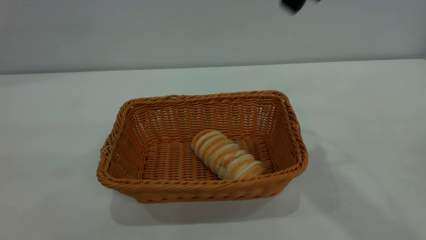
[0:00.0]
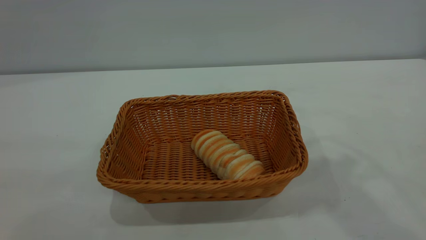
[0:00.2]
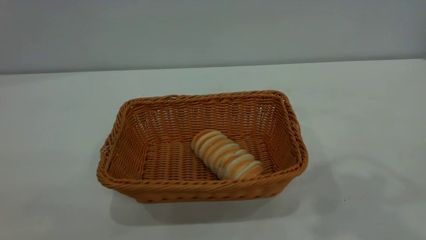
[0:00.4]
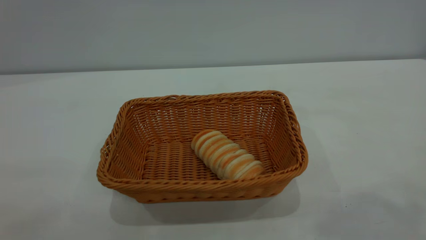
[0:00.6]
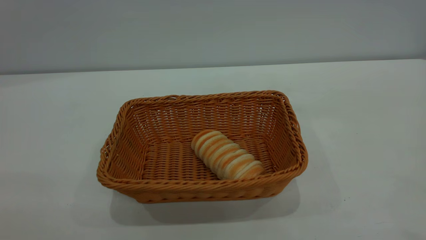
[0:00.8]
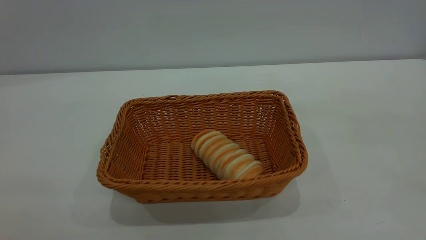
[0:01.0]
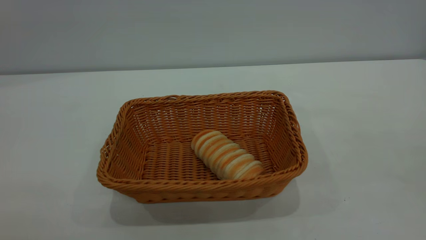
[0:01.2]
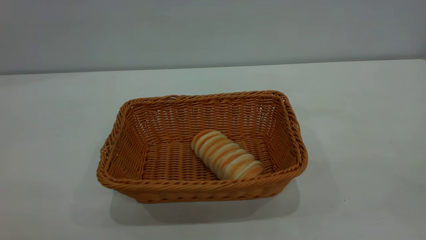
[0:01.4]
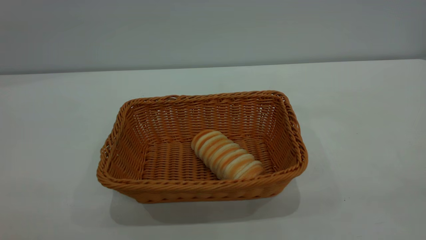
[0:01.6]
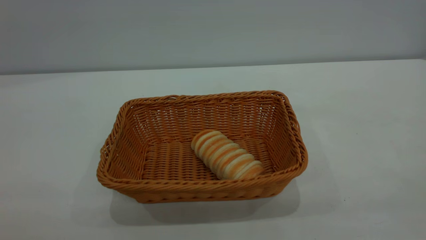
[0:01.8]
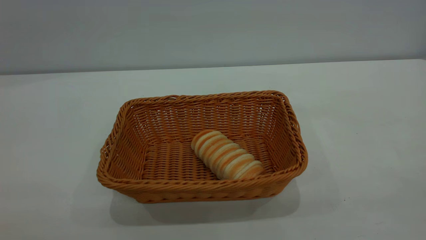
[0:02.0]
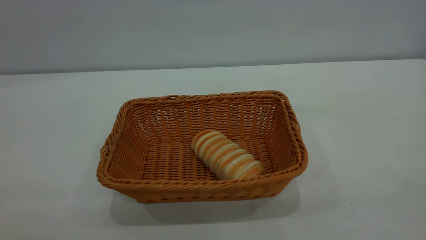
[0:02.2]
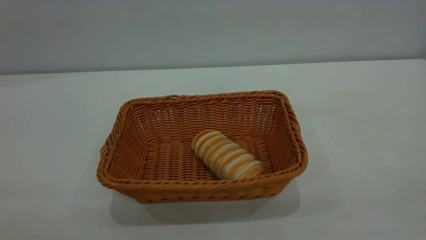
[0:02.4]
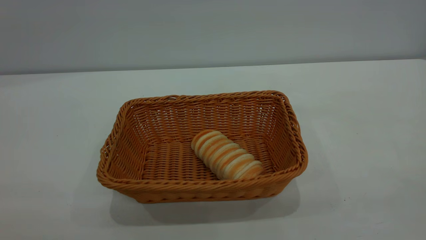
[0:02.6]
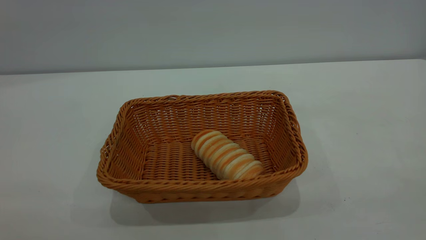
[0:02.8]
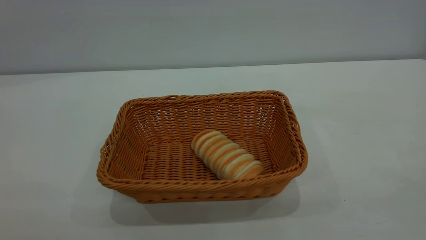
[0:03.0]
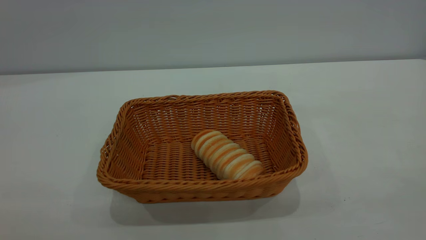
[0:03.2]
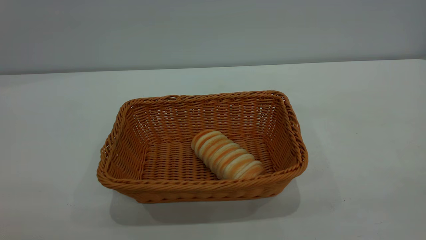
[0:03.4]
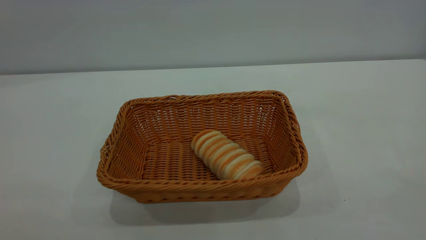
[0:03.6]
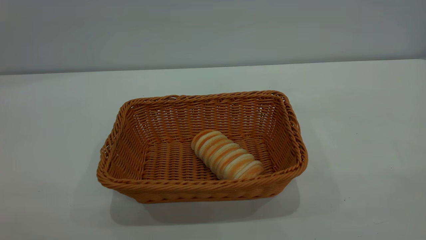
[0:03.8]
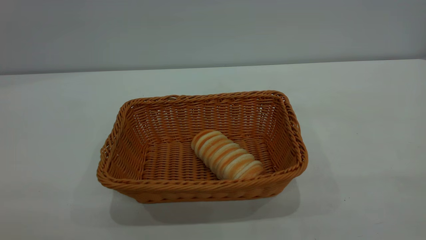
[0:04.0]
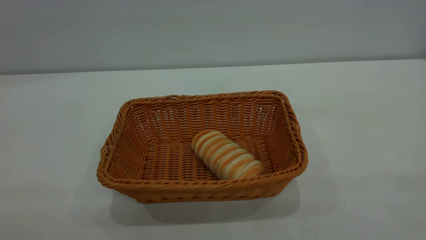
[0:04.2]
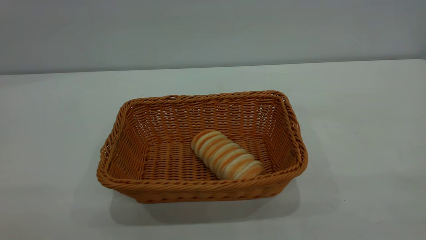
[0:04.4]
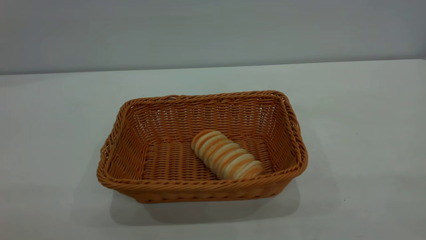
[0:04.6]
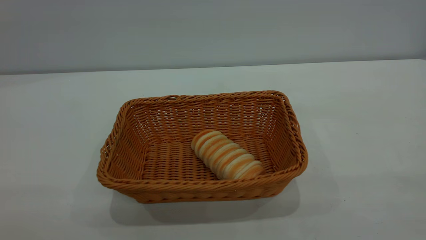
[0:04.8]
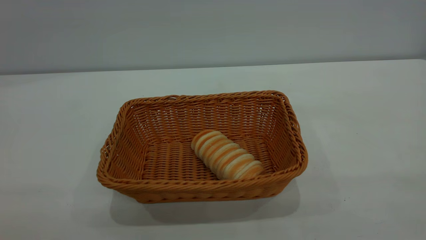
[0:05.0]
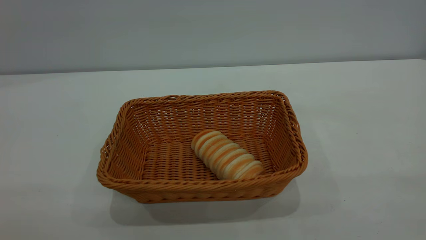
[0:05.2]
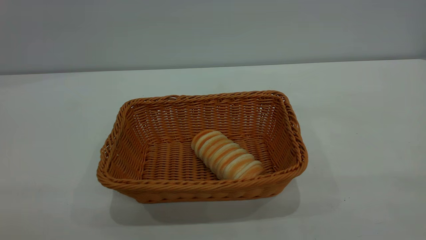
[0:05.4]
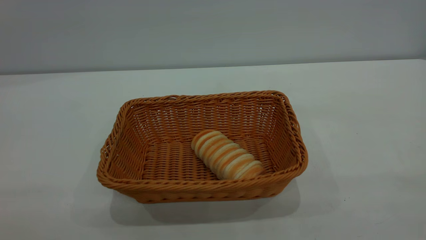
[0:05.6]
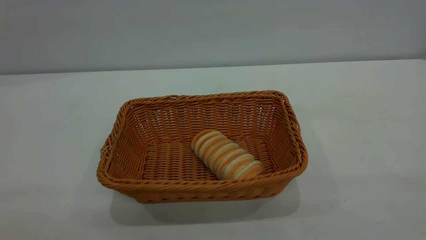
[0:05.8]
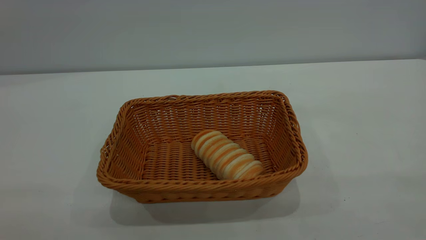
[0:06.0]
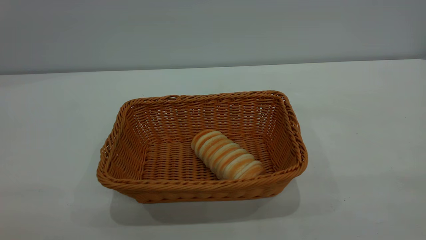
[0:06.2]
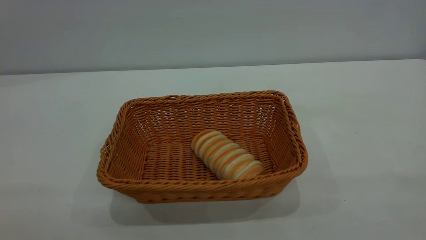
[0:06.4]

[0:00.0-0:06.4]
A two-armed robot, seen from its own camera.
Task of the whole recording: One hand grasps the yellow basket and places it in the middle of the table, while the other hand picks up the long bread and puts it into the yellow basket.
0:04.8 to 0:06.4: Both grippers stay about where they are.
